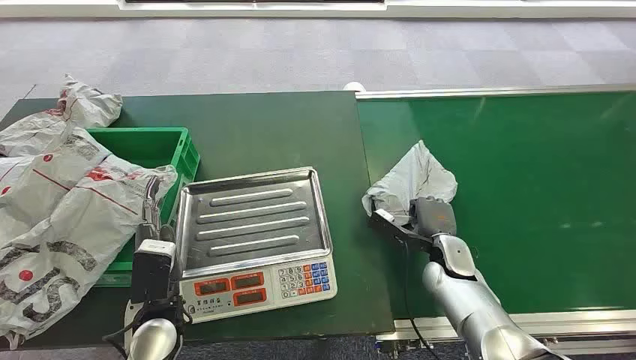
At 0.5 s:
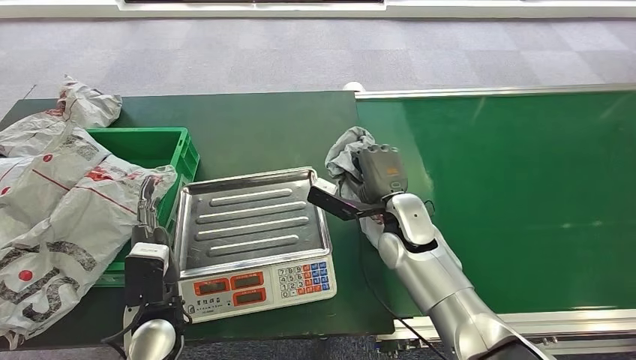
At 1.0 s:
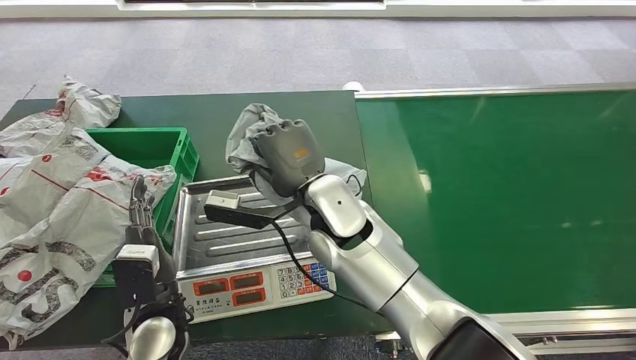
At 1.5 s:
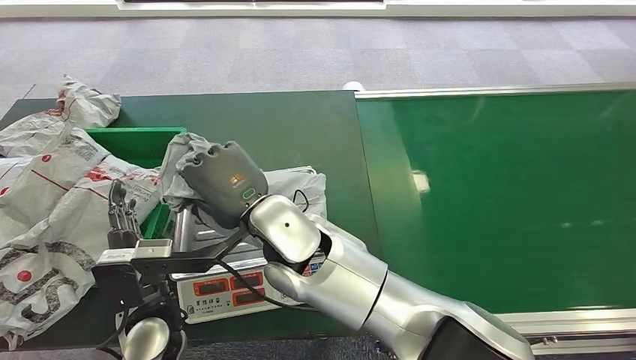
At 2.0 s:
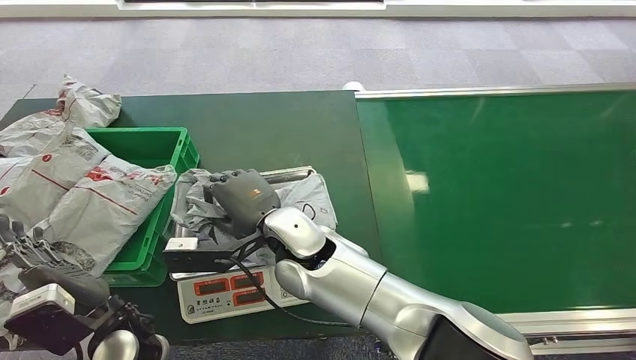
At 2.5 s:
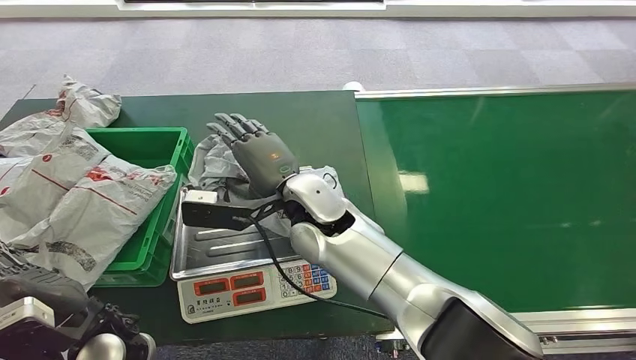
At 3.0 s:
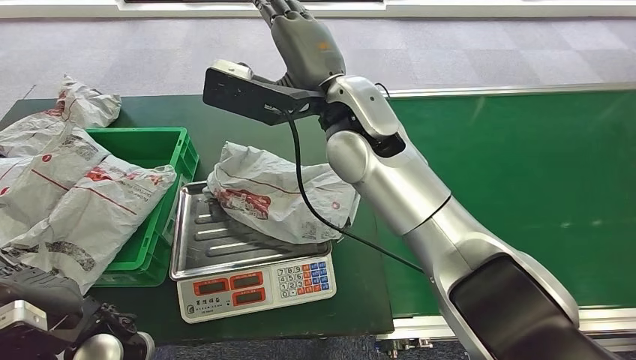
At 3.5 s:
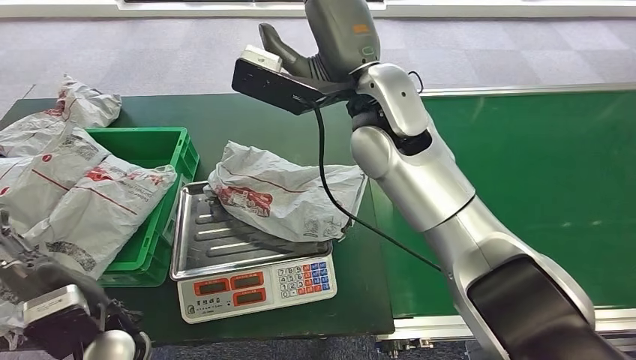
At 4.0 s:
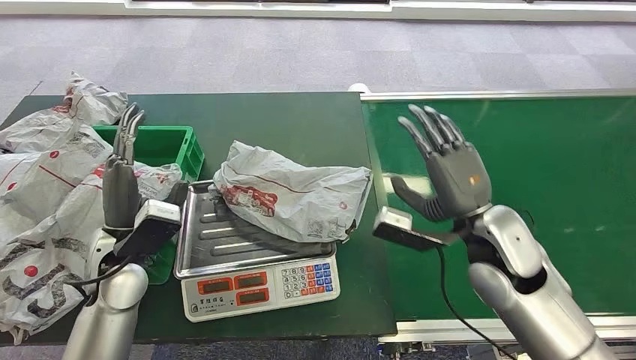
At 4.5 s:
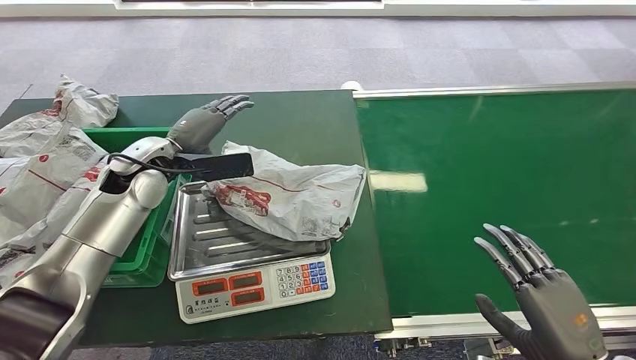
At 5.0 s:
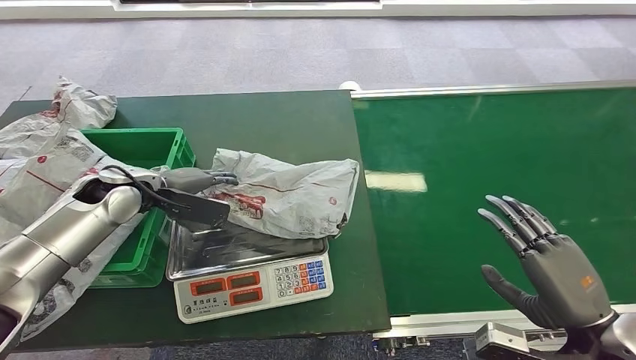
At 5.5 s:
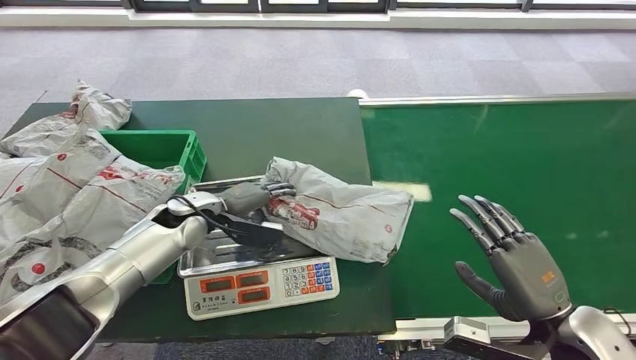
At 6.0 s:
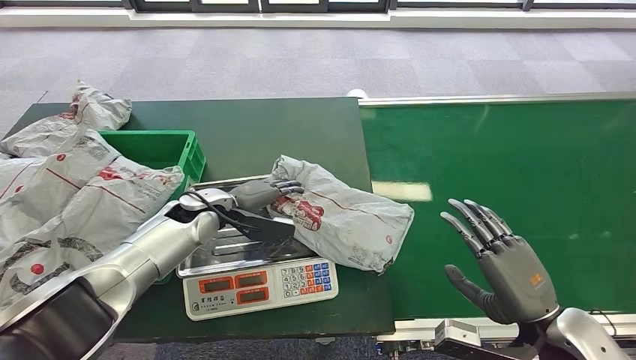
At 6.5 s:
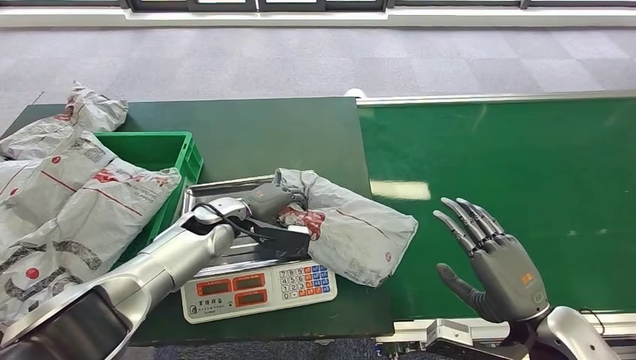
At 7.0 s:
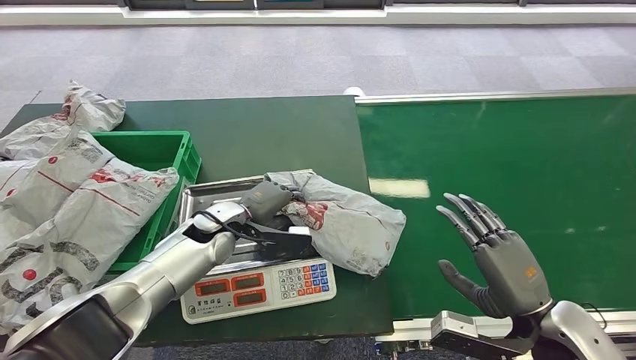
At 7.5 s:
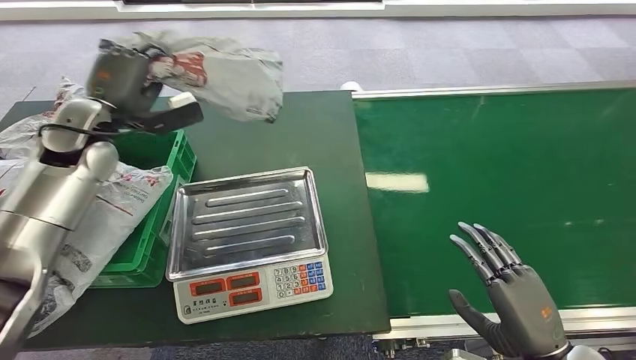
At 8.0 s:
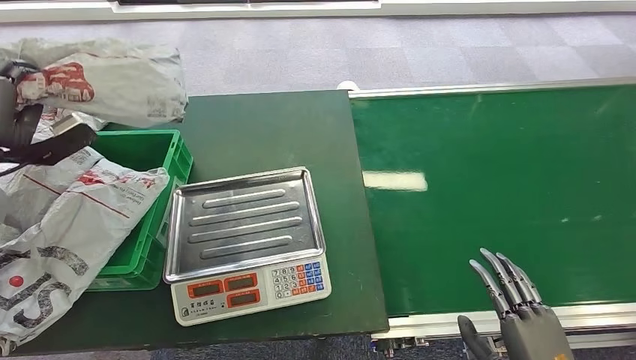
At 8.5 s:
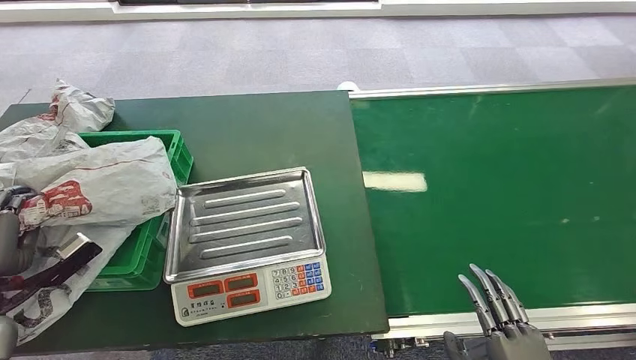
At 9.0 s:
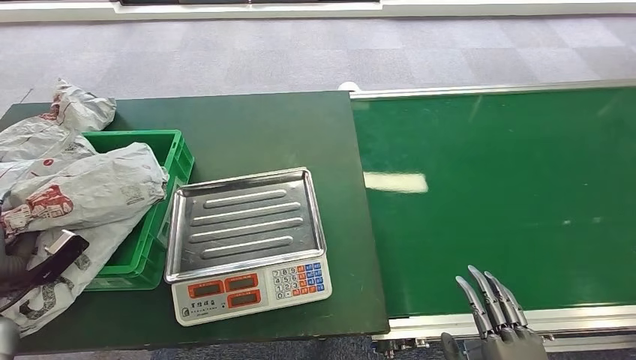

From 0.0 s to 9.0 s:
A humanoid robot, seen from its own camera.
Step, from 0.0 s to 0.5 s: Pick up the package from the conveyor belt.
Step, from 1.0 s to 3.0 s: Place the package onto the inbound machine.
Step, from 3.5 s to 7.5 s: Pick up the package from the inbound machine.
Step, from 8.0 s to 9.0 s: Place the package into the parcel locker.

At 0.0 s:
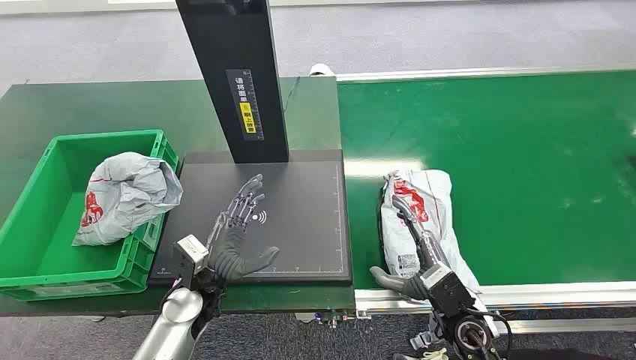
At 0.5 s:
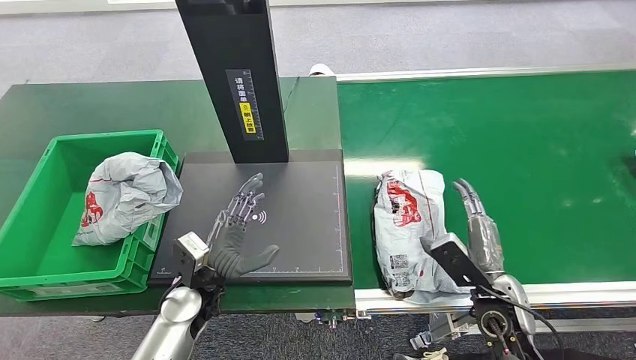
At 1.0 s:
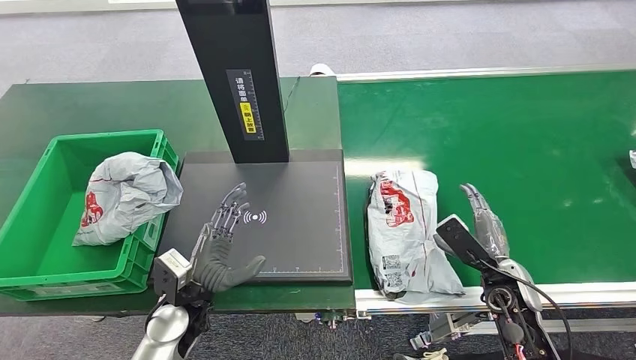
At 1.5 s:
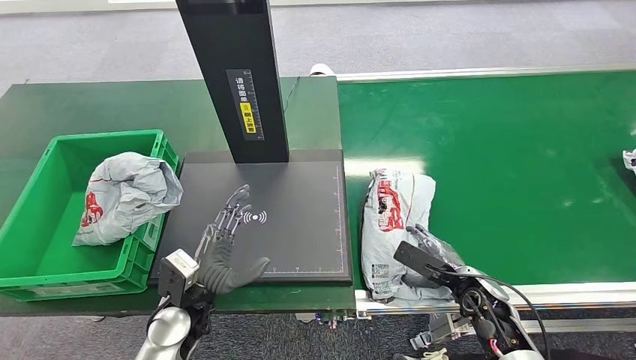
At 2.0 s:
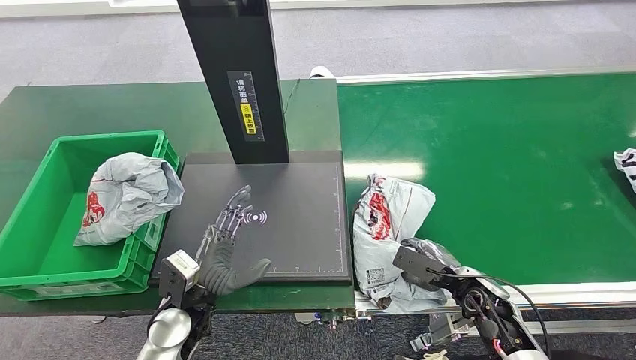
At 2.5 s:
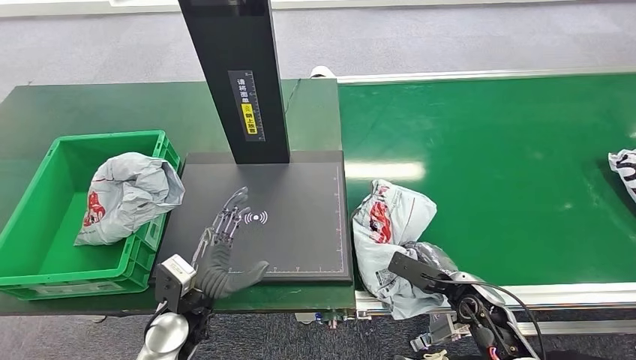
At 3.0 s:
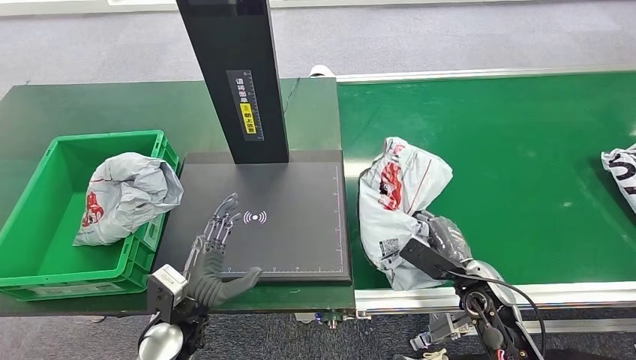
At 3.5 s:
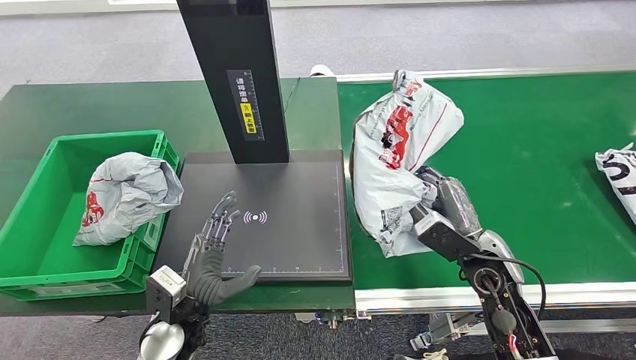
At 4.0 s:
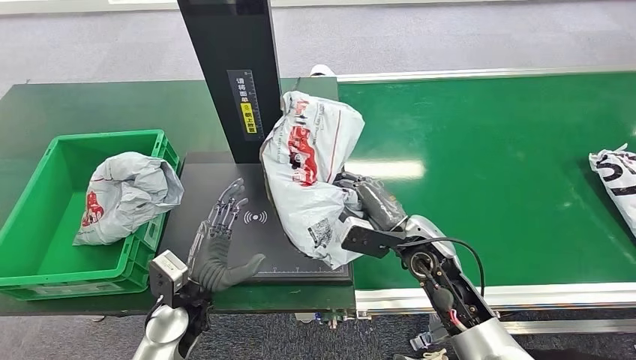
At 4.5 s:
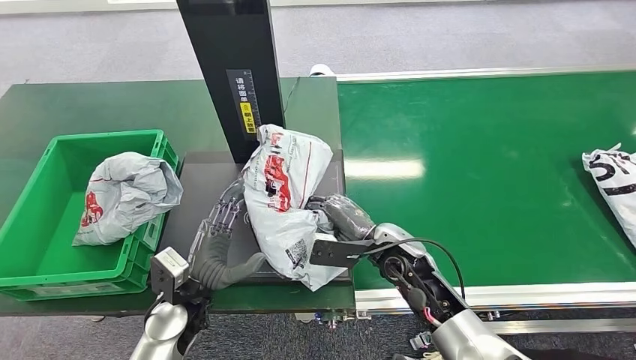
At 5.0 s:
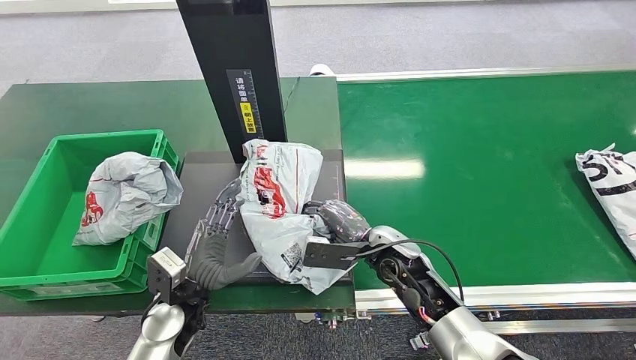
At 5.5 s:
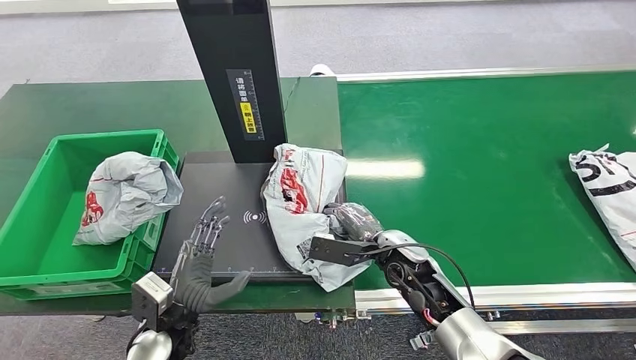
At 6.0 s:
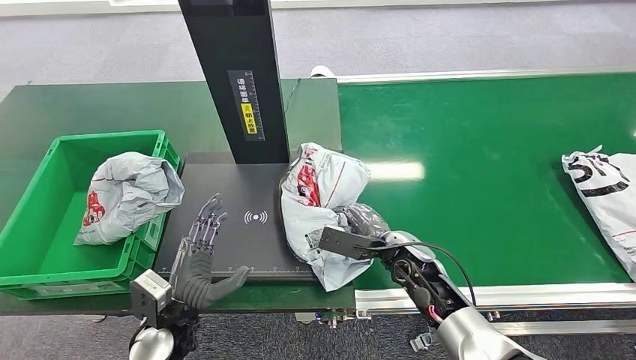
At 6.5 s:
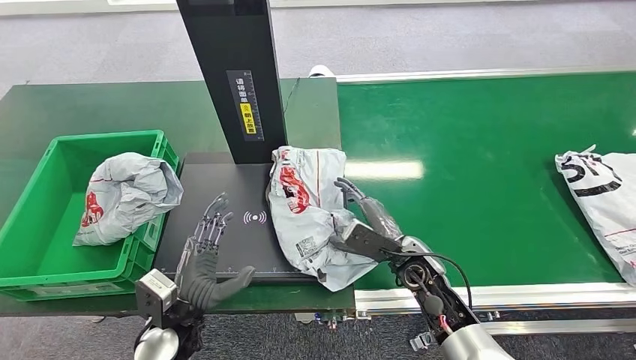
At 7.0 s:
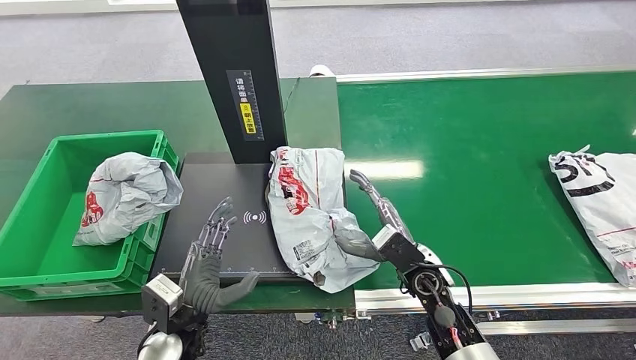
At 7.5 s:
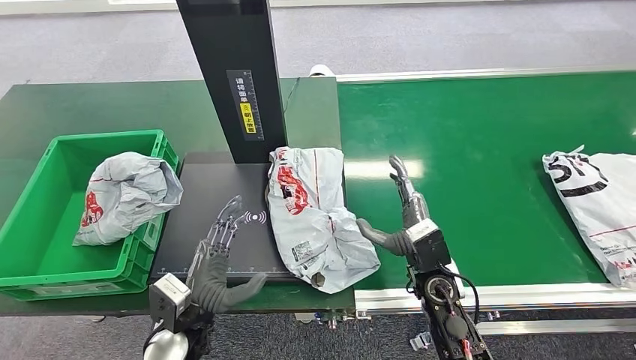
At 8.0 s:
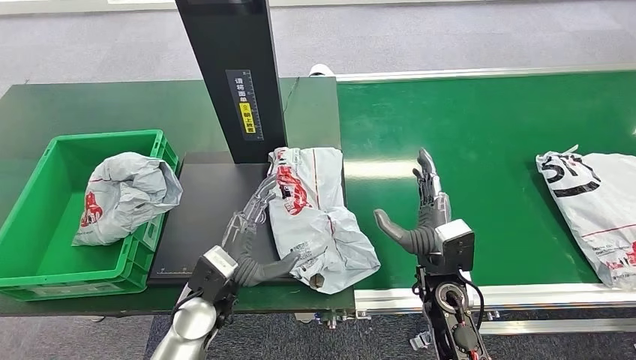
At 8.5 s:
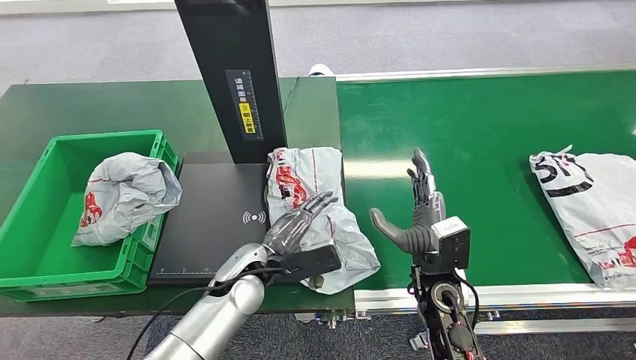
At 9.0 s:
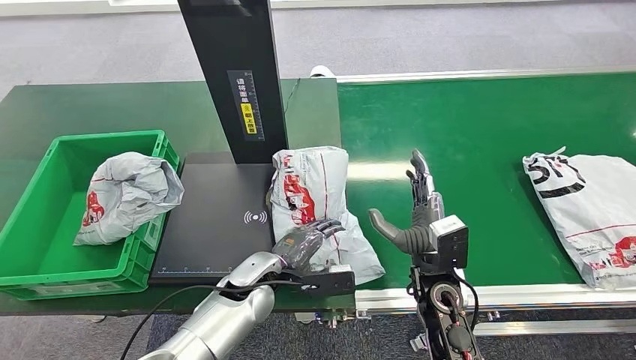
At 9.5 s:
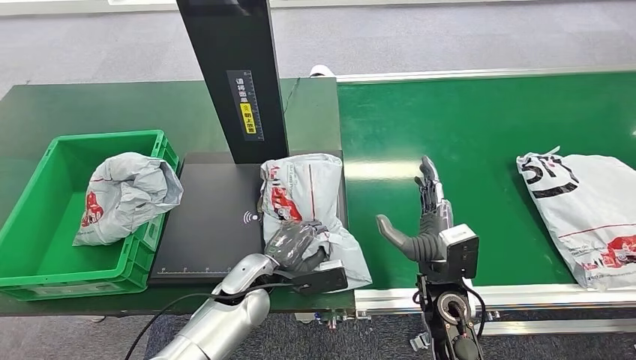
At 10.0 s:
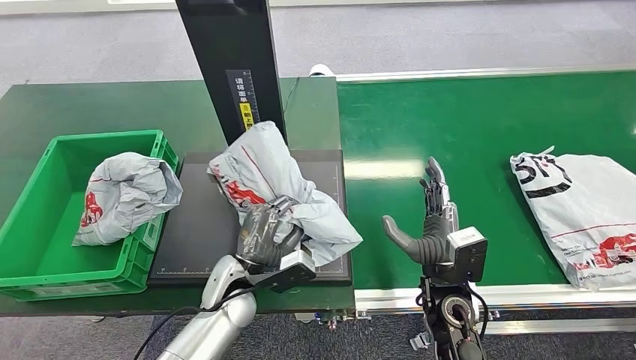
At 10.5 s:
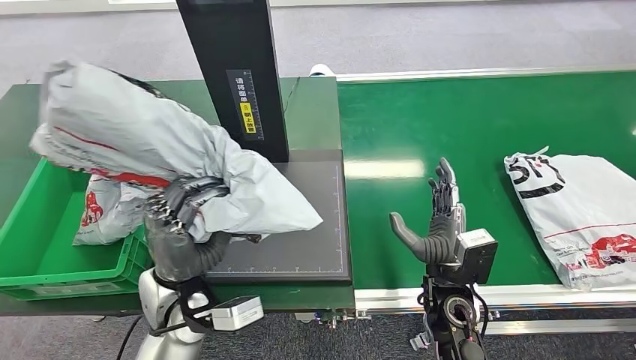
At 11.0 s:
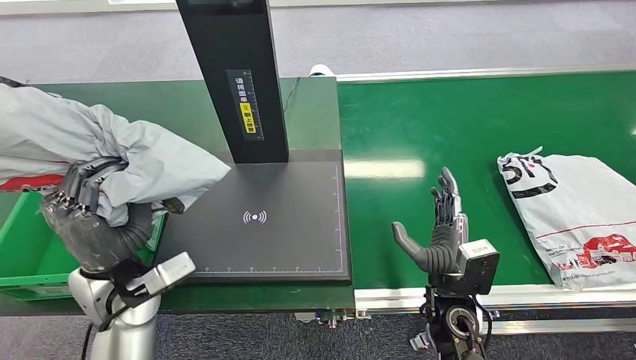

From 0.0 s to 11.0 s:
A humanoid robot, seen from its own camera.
Step, from 0.0 s to 3.5 s: Pick up the package from the conveyor belt.
Step, from 4.0 s to 7.0 s: Place the package onto the inbound machine.
Step, from 7.5 s to 10.5 s: Pick up the package from the inbound machine.
From 2.0 s to 3.5 s: The right hand heads upward, covering about 10 cm.
From 7.5 s to 9.0 s: The left hand shifts about 10 cm forward and to the right.
